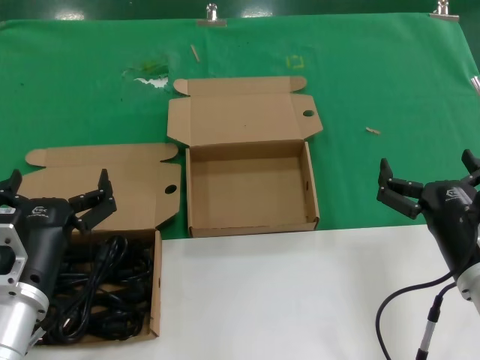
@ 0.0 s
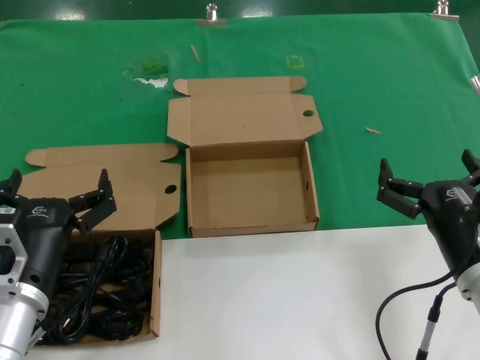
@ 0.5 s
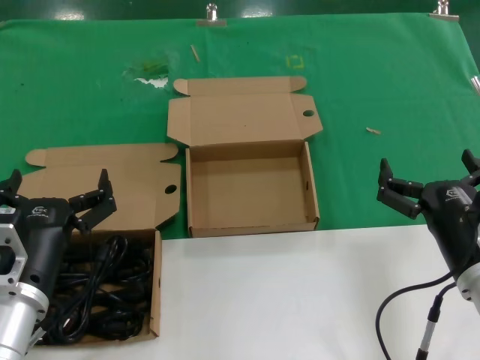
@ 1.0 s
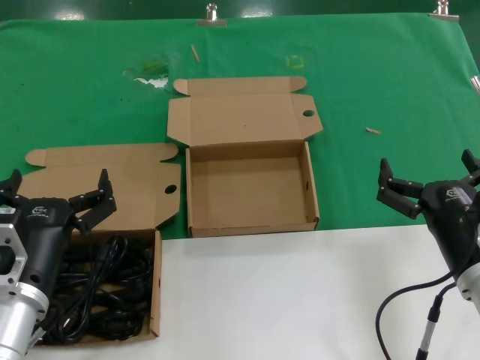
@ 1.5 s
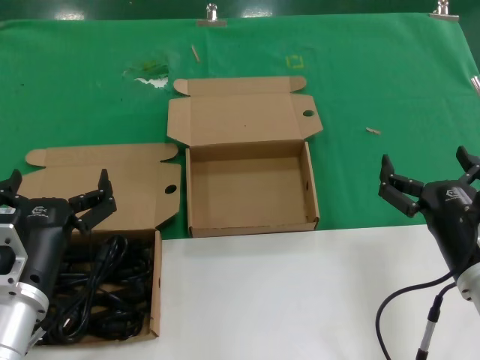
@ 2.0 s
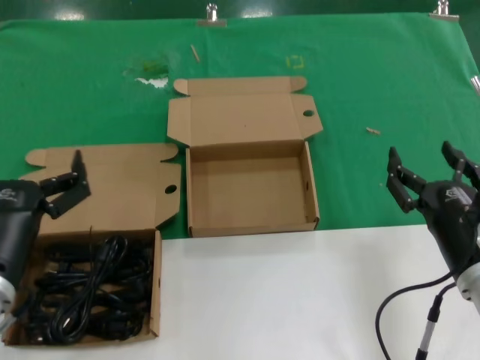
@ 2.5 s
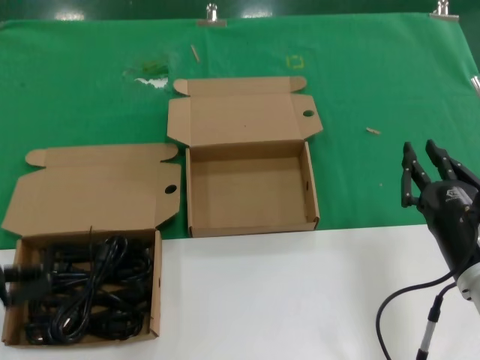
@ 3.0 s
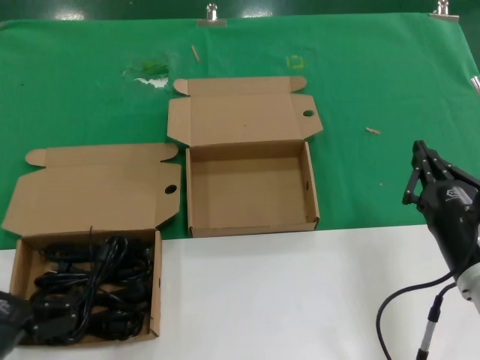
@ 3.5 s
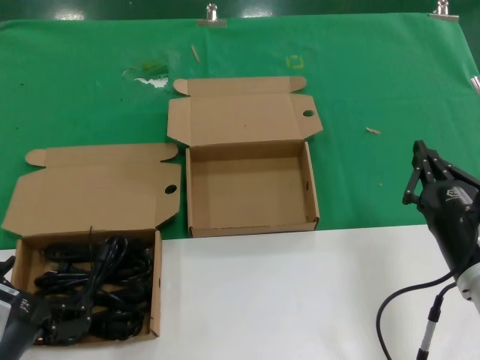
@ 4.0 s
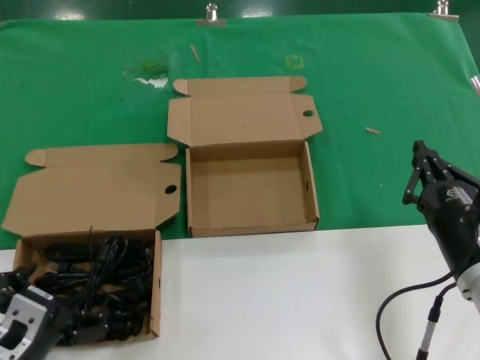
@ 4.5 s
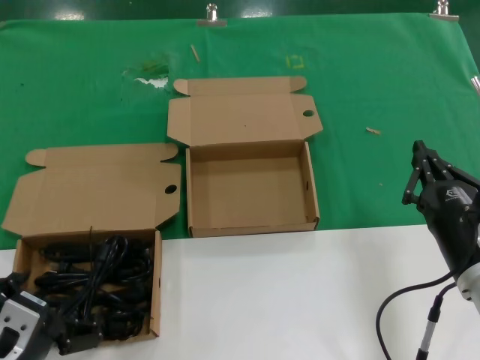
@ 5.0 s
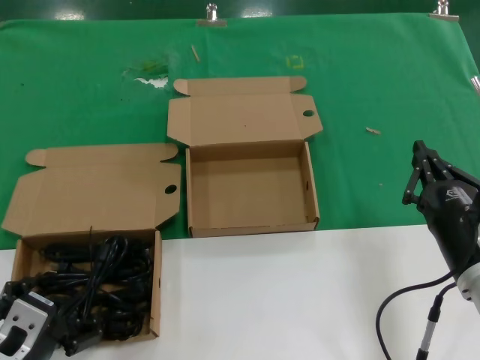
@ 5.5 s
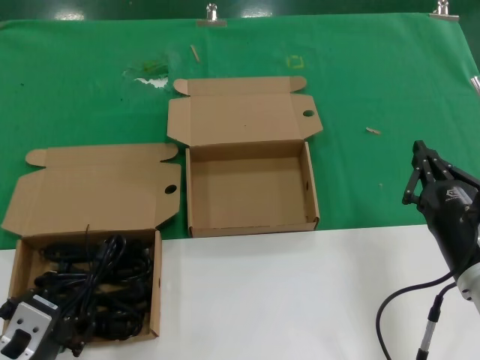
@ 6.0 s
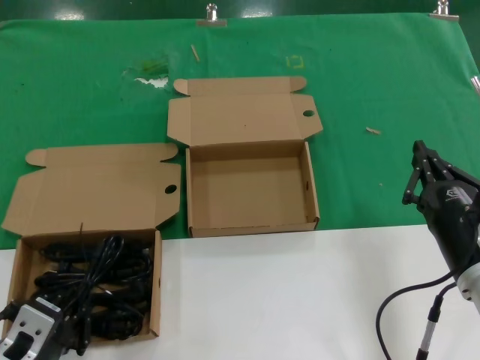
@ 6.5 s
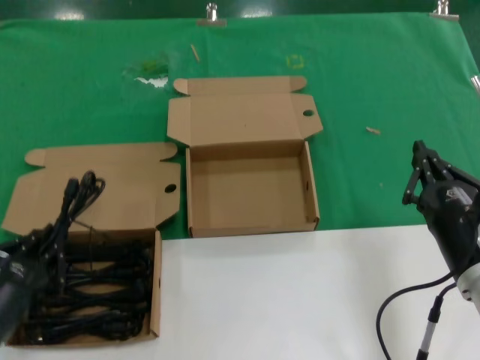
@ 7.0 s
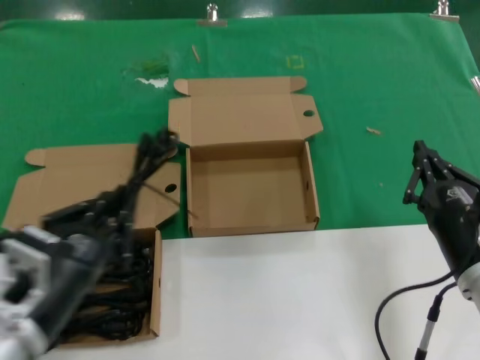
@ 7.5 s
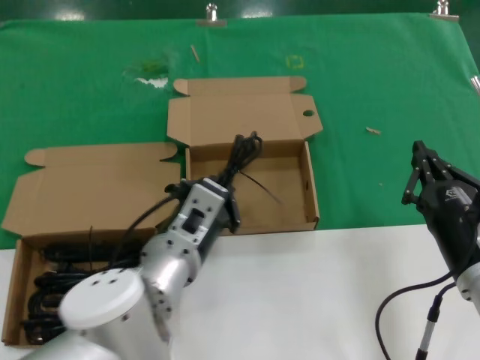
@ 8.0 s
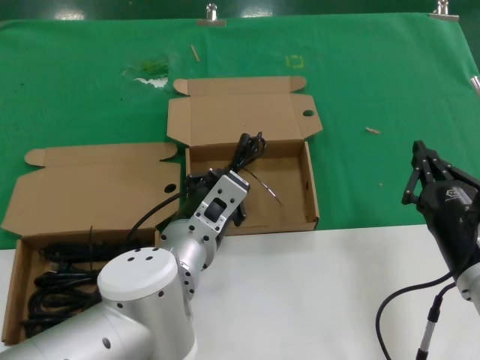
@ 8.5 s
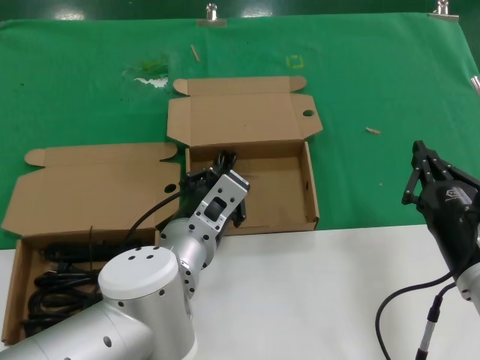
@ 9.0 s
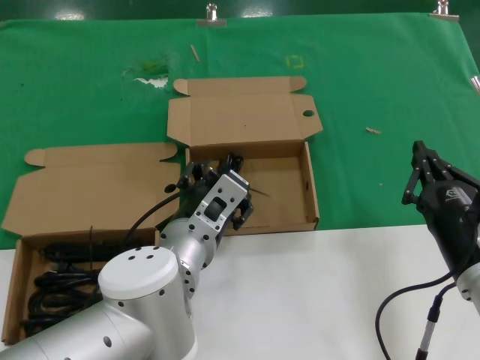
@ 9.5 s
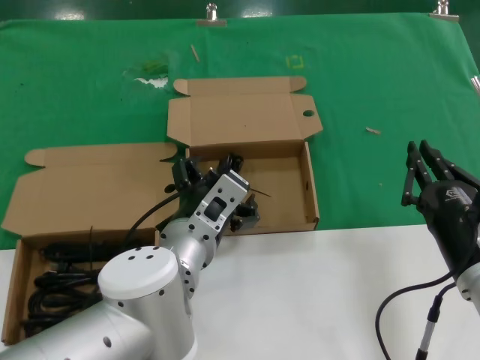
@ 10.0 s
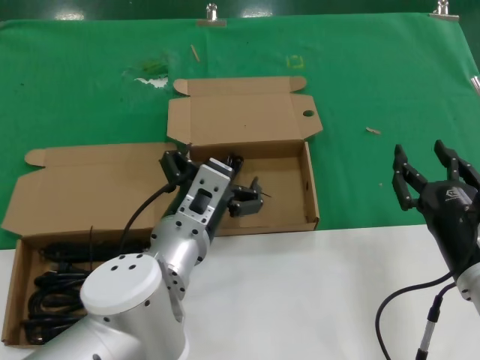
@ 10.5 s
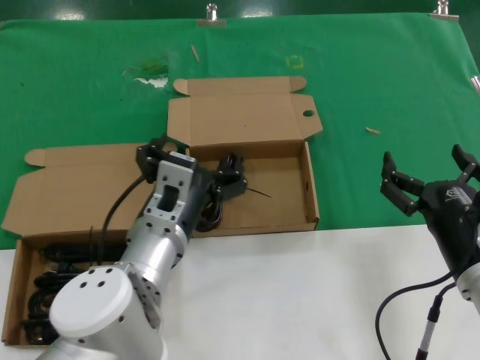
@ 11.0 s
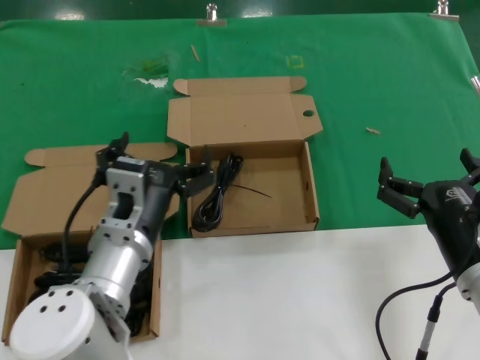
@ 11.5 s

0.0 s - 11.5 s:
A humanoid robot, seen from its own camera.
Task of the whole recording: Pick up the power cord from the box containing it and place it in another box.
Step, 0.0 s - 6.5 s: Grasp the data cable.
Step, 7.0 s - 9.0 s: Place the data cable in the another box.
0.0 s - 2.0 s: Both hands stay put.
2.0 s - 4.0 s: The left hand shifts about 10 cm backward and to the left.
4.0 s - 6.0 s: There are only small adjustments of the hands.
6.0 s - 7.5 s: The left hand heads upward, covering some 10 cm.
7.5 s - 9.5 s: The left hand shifts roughly 25 cm to the right and forward.
9.5 s - 11.5 s: The left hand heads to the left, covering roughly 5 cm.
